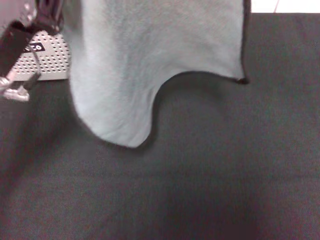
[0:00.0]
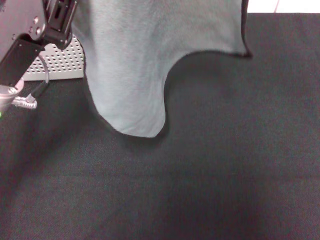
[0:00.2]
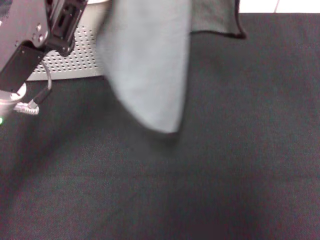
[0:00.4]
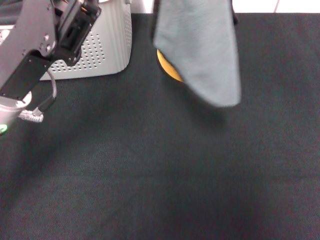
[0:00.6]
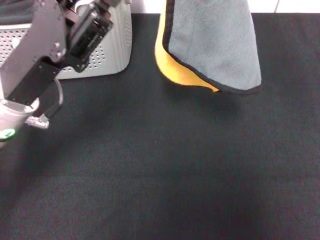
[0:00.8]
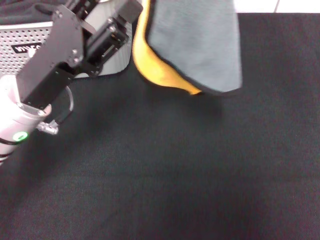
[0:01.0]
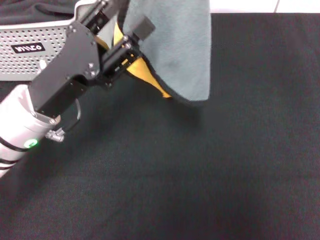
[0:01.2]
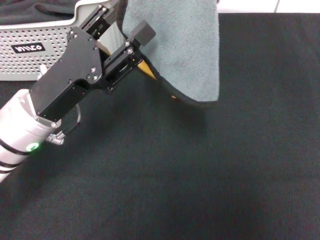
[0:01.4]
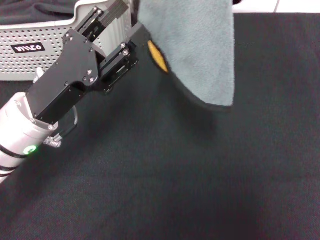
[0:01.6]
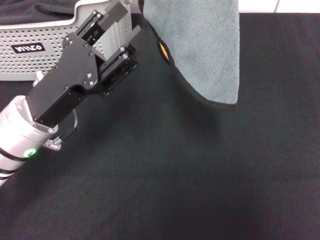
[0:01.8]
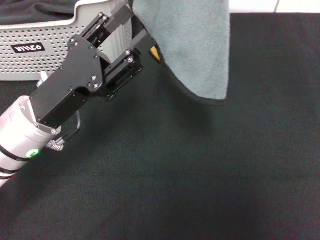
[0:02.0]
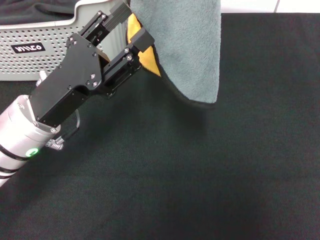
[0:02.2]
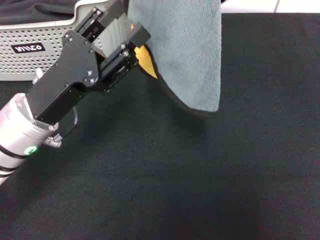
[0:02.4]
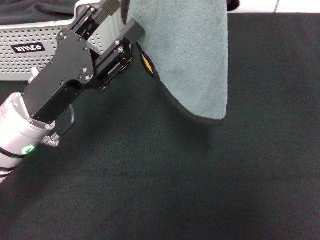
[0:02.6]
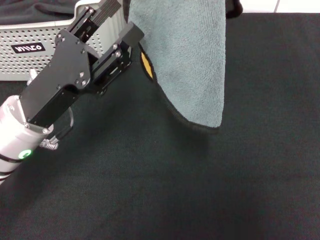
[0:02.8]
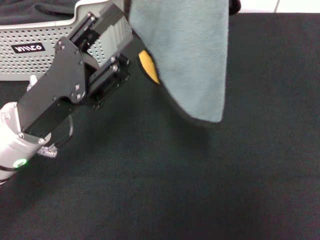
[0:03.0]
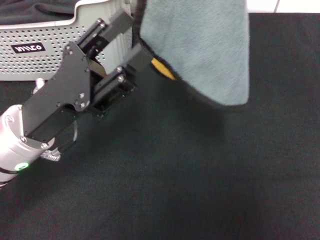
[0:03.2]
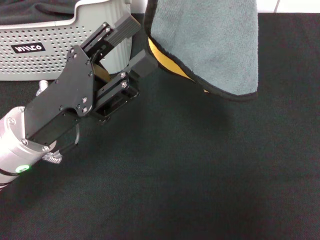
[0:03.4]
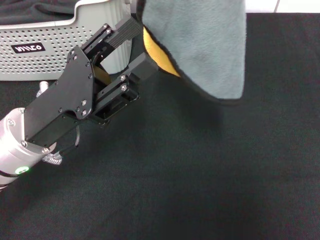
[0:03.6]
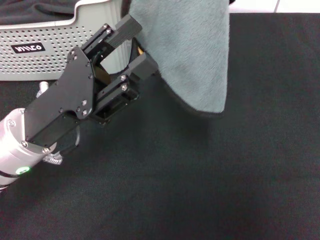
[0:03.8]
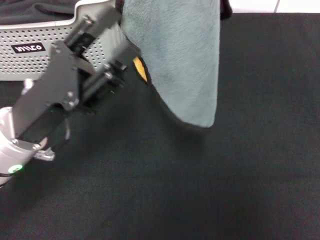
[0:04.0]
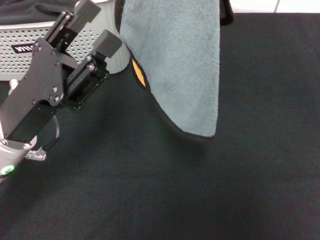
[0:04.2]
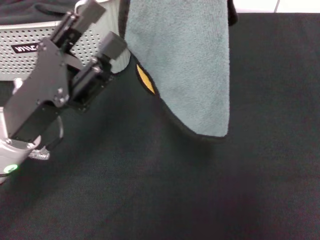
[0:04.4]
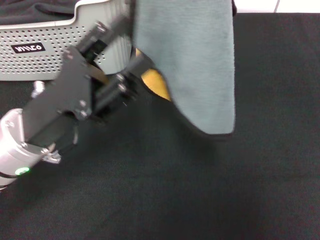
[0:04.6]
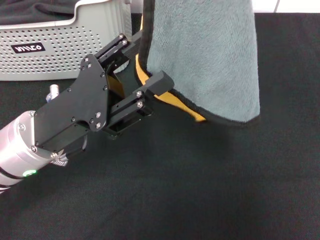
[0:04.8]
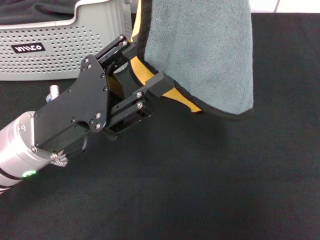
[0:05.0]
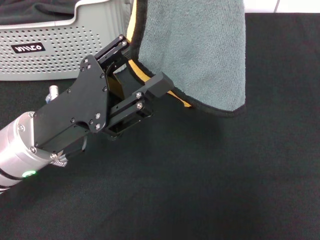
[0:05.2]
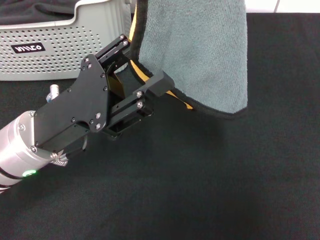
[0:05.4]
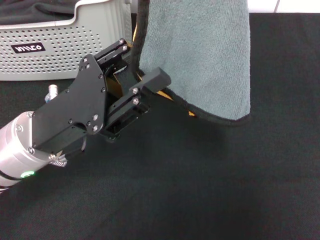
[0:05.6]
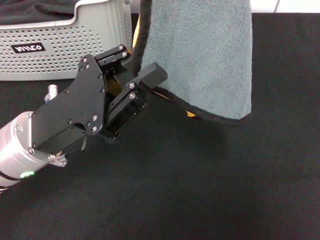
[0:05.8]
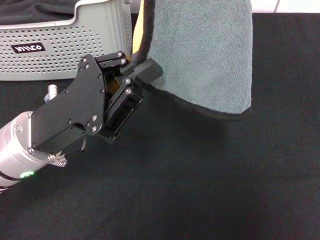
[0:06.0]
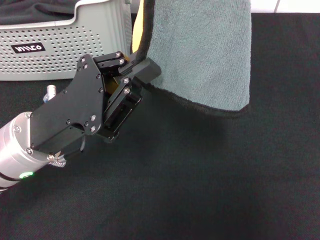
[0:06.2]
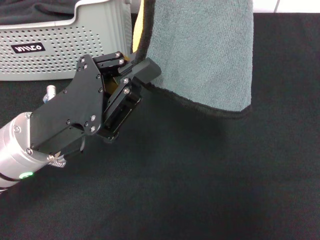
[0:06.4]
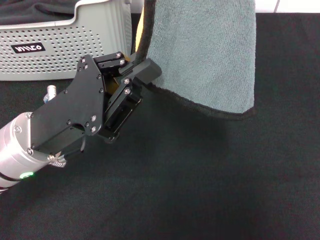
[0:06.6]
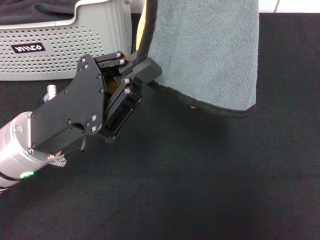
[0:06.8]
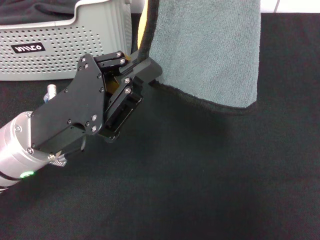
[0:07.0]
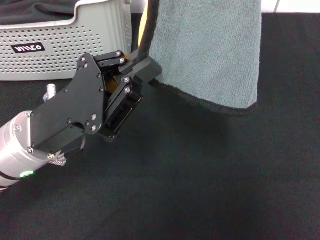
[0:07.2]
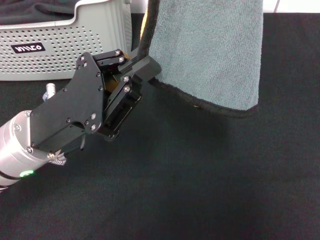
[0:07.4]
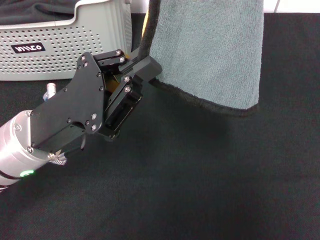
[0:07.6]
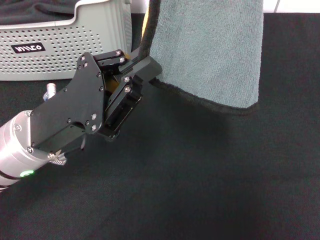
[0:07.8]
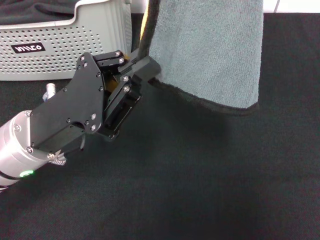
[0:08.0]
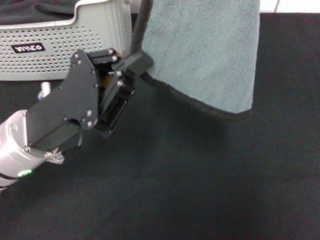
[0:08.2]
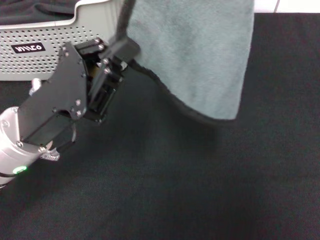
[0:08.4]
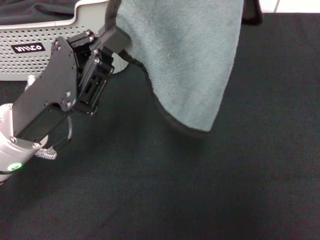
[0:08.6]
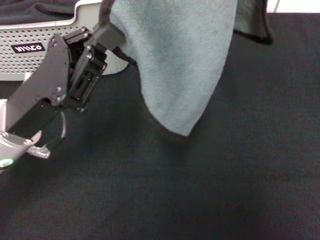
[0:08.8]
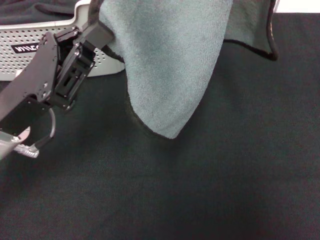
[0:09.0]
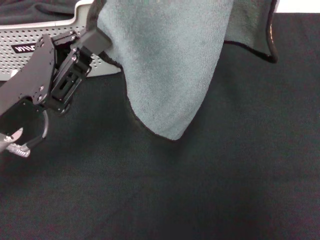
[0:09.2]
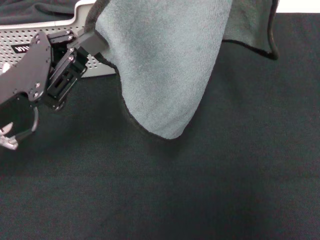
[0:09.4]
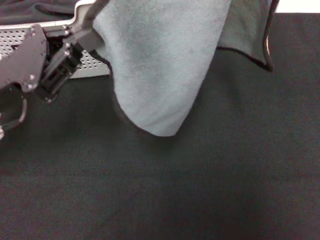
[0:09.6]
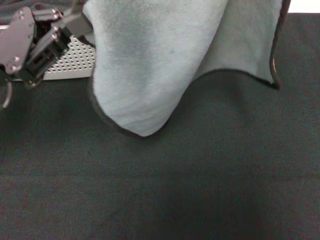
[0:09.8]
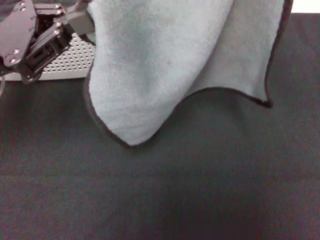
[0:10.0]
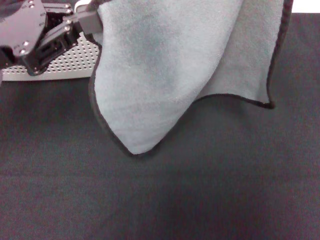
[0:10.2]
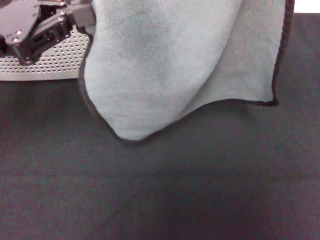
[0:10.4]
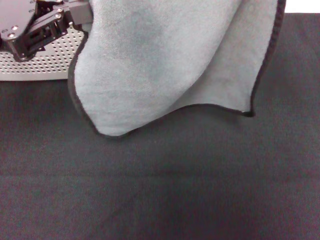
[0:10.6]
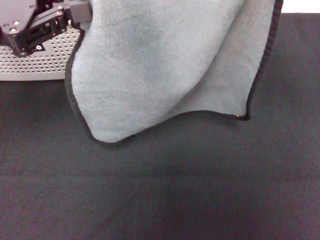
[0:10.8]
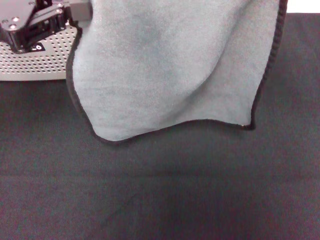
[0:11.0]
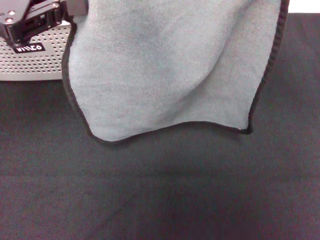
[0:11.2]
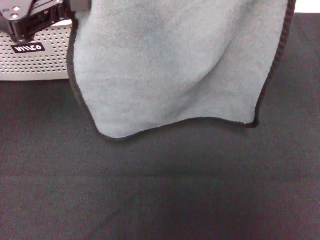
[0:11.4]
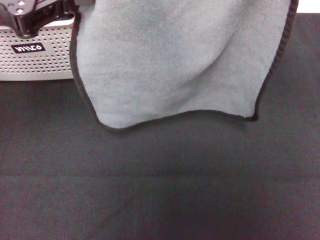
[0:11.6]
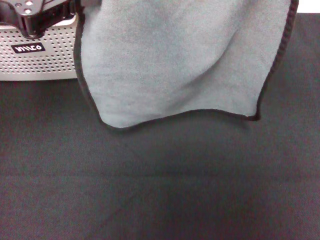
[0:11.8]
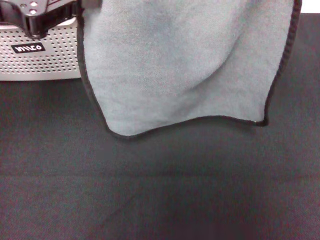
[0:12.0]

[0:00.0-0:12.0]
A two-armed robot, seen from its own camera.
Task of the whole recording: pick up the towel from the storage box and lay it flat on the black tablecloth.
0:00.0 to 0:01.6: The right gripper heads upward, covering about 10 cm, while the left gripper moves downward, about 5 cm, and opens up.
0:01.6 to 0:04.4: The grippers make only small movements.
0:04.4 to 0:06.0: The left gripper closes its fingers.
0:06.0 to 0:07.6: Both grippers stay about where they are.
0:09.0 to 0:10.4: The right gripper goes some 5 cm downward. The left gripper travels upward and to the left by approximately 10 cm.
0:10.4 to 0:12.0: The left gripper travels upward by about 10 cm.

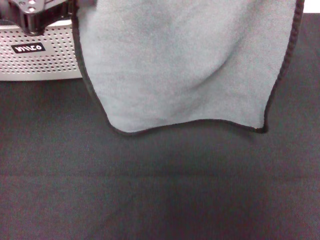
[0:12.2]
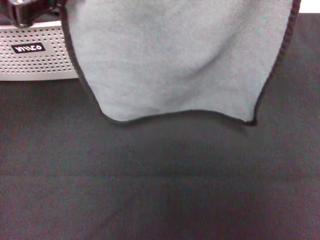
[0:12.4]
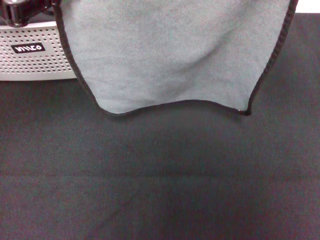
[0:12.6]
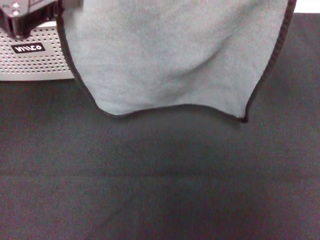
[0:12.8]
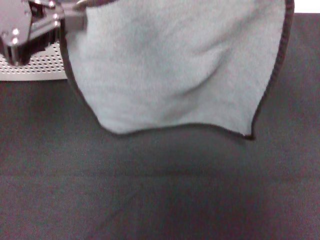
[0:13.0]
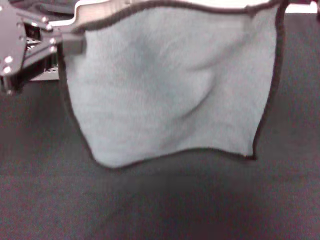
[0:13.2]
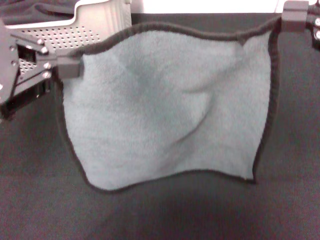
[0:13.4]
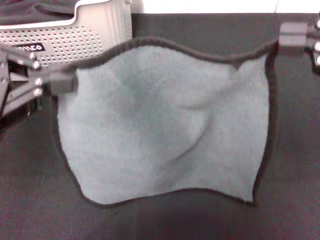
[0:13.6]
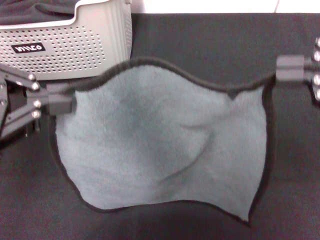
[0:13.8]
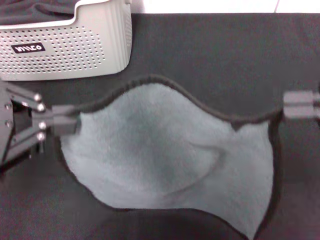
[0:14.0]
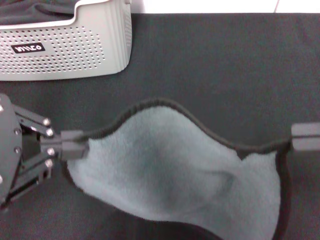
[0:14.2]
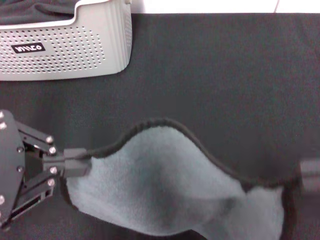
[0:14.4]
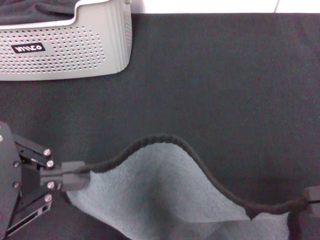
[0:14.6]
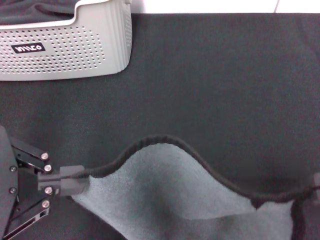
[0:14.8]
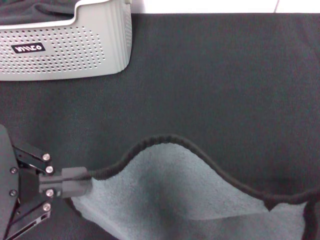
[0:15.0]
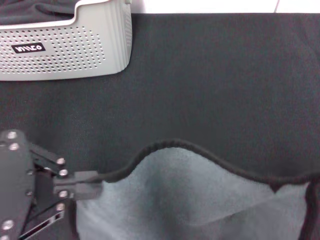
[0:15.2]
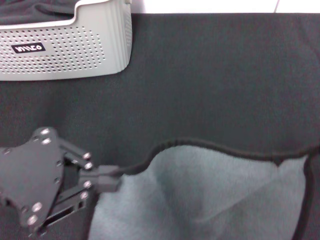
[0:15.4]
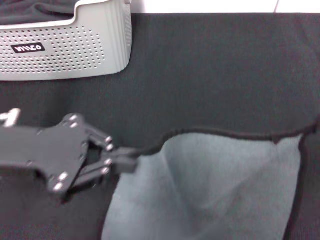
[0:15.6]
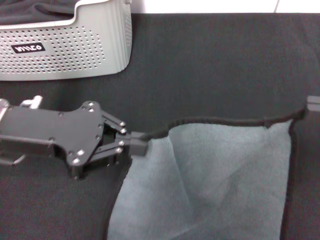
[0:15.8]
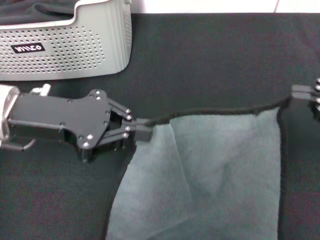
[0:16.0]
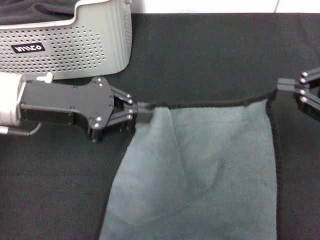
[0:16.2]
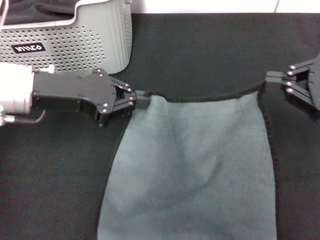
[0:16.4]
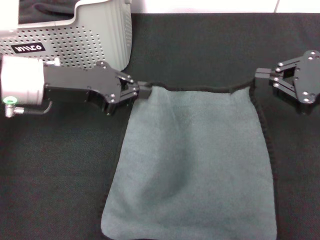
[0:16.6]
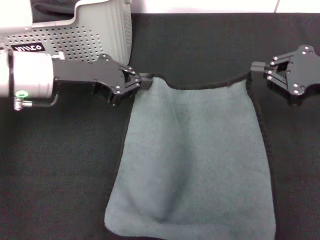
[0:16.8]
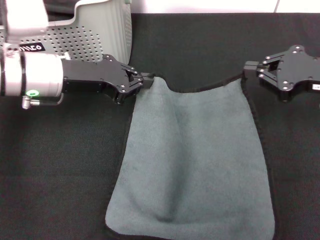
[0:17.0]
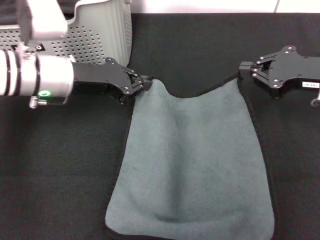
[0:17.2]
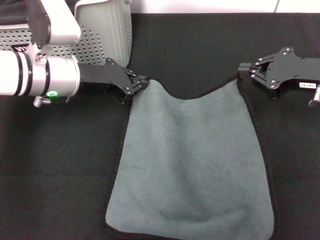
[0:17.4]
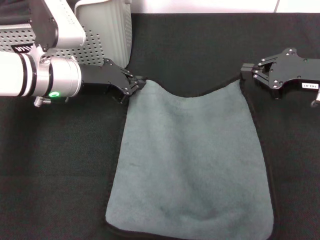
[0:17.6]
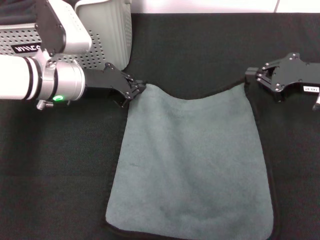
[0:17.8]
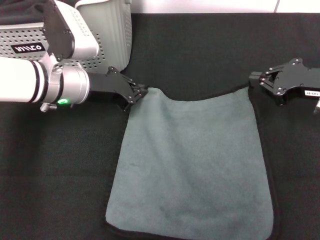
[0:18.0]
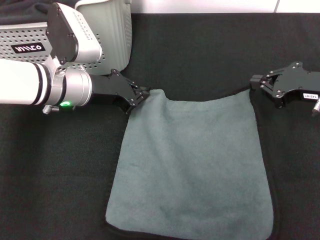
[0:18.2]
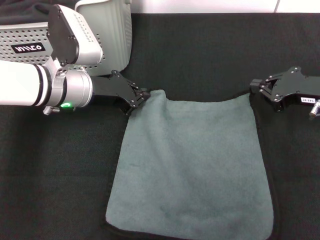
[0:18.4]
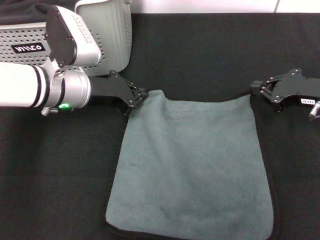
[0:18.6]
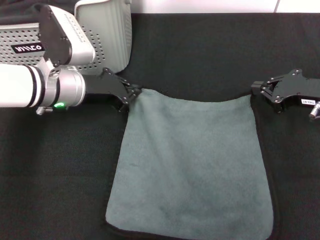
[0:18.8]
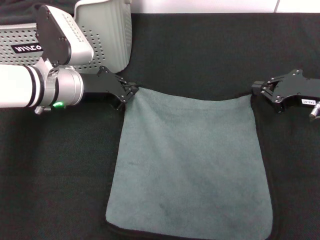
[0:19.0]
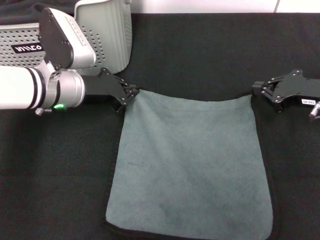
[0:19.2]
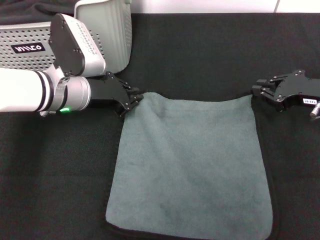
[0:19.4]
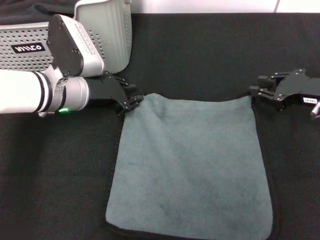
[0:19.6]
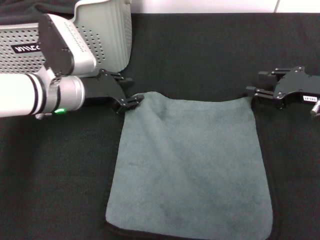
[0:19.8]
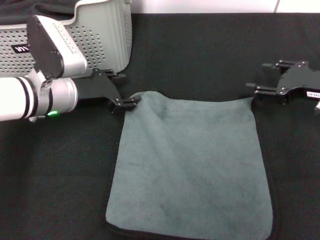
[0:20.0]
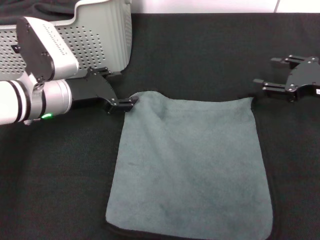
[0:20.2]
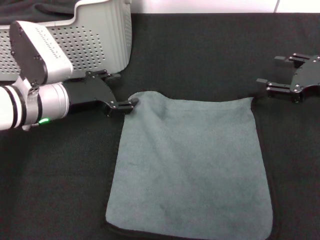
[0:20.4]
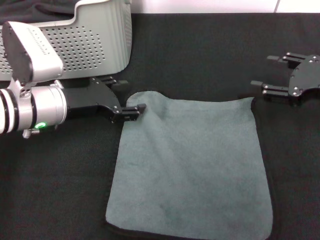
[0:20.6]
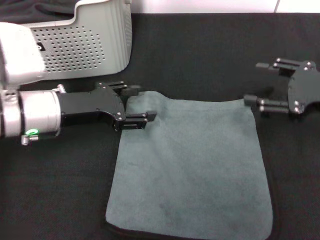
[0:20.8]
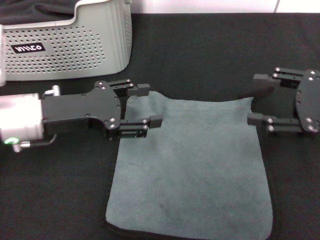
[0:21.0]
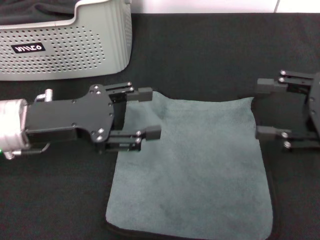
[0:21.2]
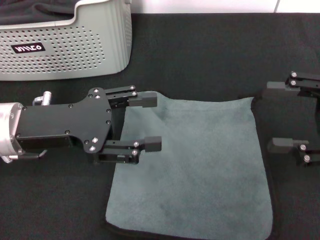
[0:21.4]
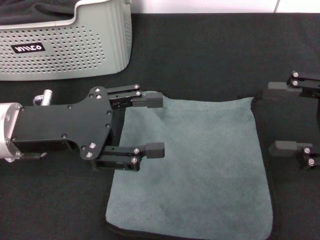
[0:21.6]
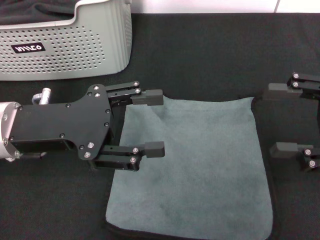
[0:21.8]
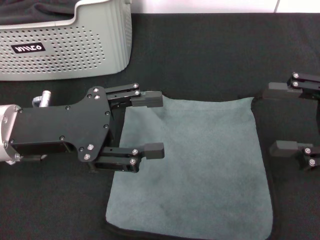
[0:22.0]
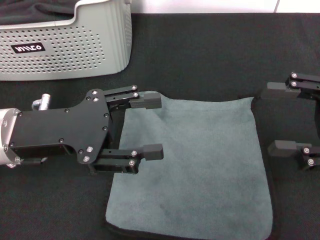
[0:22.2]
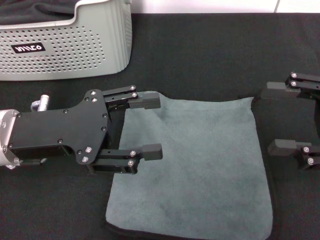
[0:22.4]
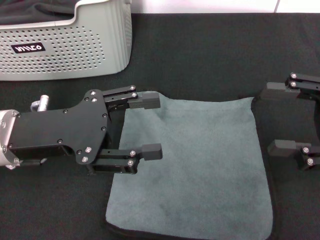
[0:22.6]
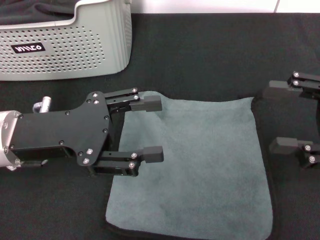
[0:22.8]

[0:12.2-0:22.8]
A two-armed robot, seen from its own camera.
Task of the whole recording: pick up the towel from the storage box and lay it flat on the black tablecloth.
Step, 0:12.2 to 0:19.6: Spread the towel flat with the right gripper.
0:12.2 to 0:13.8: The grippers both shift backward by about 10 cm.
0:13.8 to 0:15.2: The right gripper shifts by roughly 5 cm.
0:15.2 to 0:16.8: The grippers both shift forward and downward by some 20 cm.
0:16.8 to 0:18.2: The left gripper shifts about 5 cm downward, while the right gripper shifts by some 5 cm.
0:18.2 to 0:19.8: The left gripper opens, while the right gripper opens up.
0:19.8 to 0:21.2: Both grippers move backward and upward, some 10 cm. The left gripper opens its fingers, while the right gripper opens its fingers.
0:21.2 to 0:22.8: The grippers move only a little.
